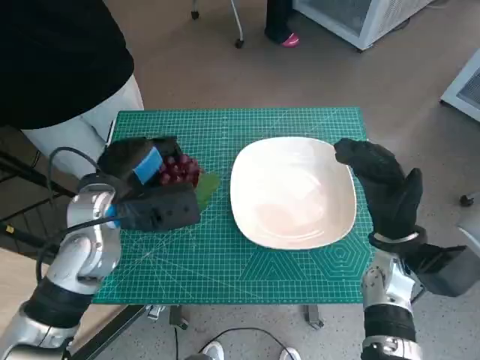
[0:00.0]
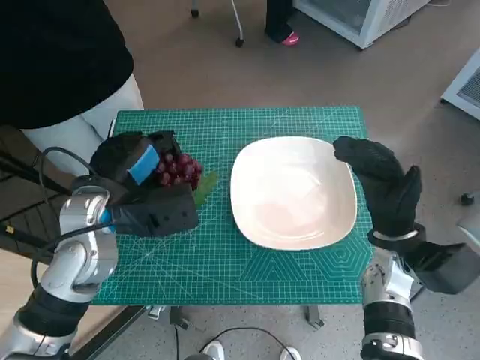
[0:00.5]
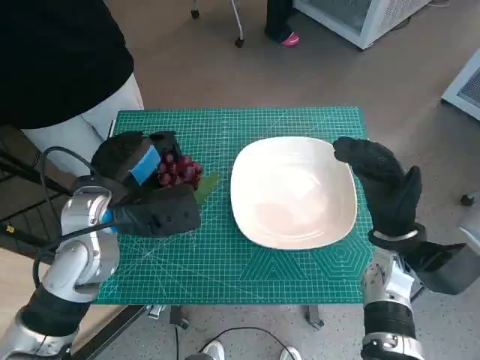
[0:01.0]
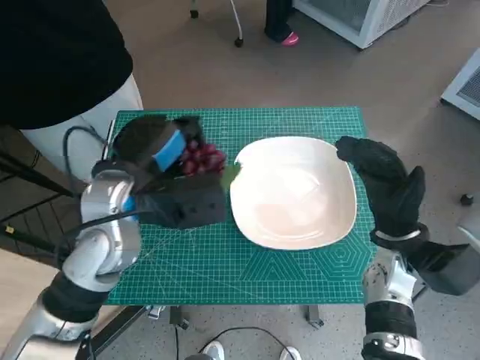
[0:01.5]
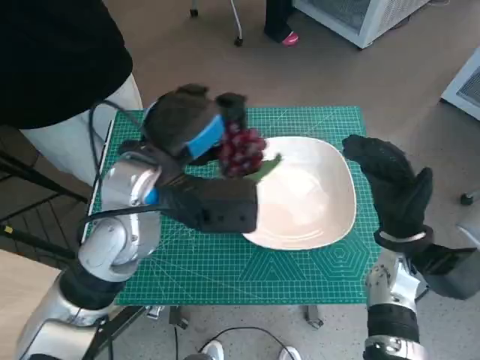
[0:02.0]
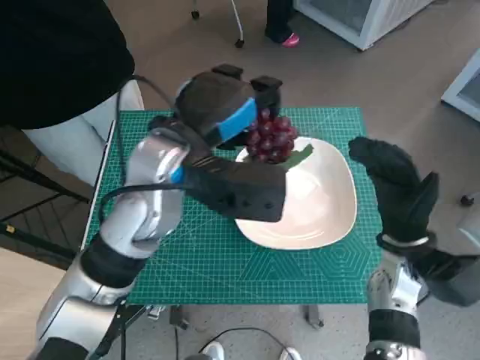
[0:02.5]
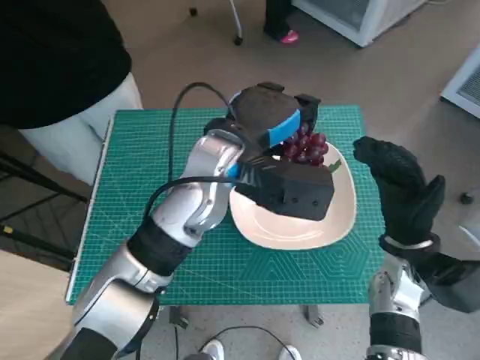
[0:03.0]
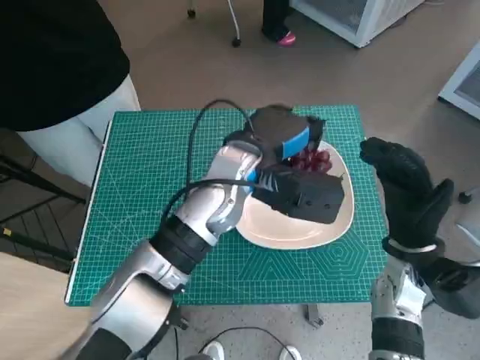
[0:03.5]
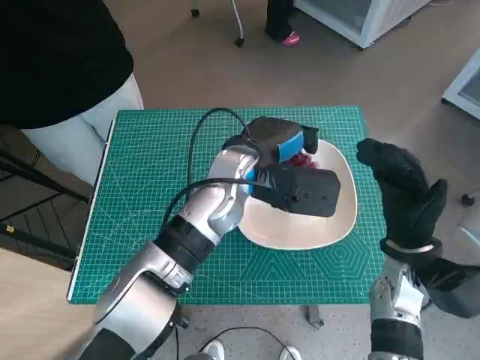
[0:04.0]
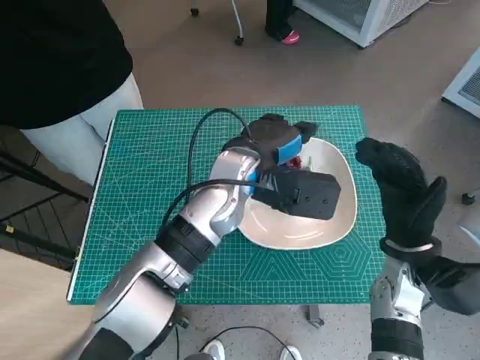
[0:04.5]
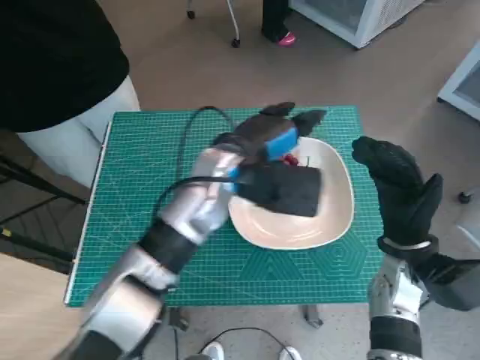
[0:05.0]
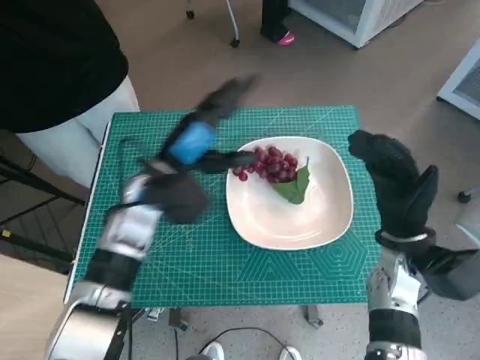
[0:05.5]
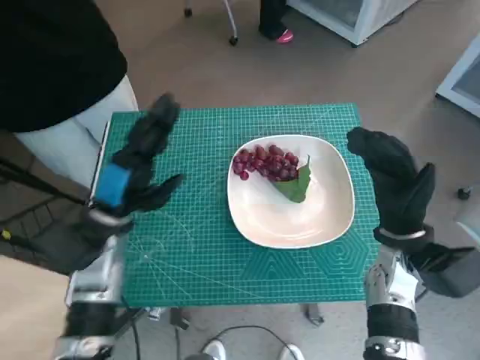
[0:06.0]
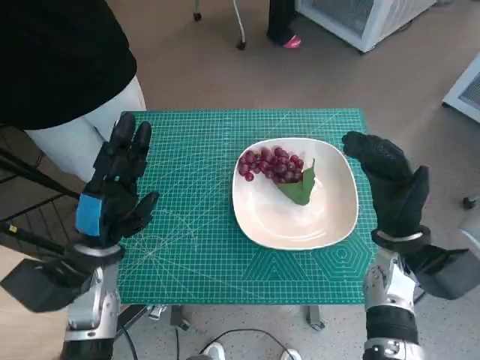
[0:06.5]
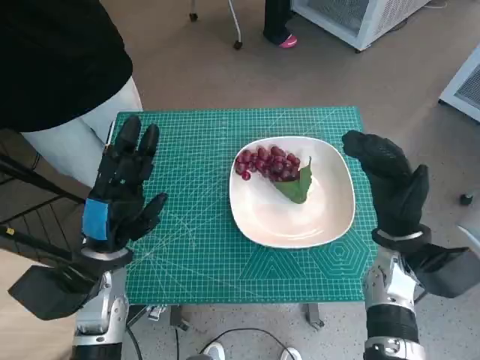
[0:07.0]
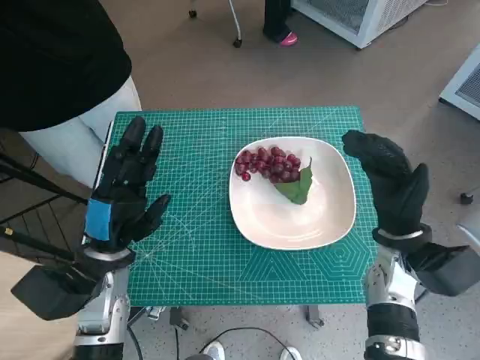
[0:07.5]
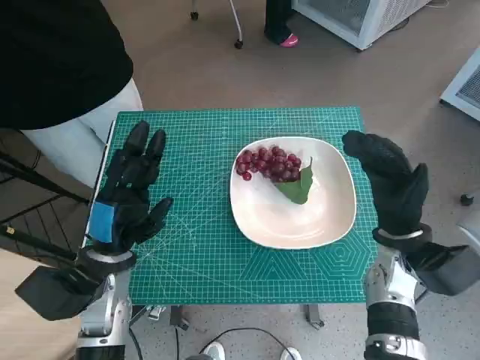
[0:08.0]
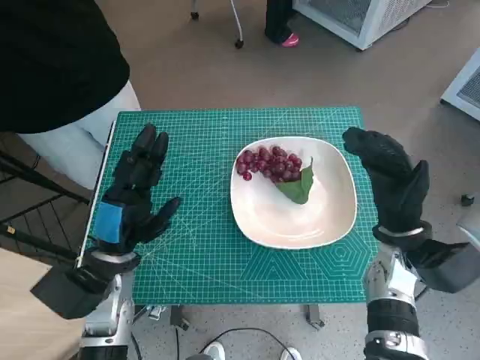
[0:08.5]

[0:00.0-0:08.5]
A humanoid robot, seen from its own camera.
Task of the whole recording: Pick up the grapes and put them on the plate.
Step, 0:00.0 to 0:04.5: Place the grapes in the plate with left hand.
0:00.0 to 0:02.0: The left hand shifts roughly 10 cm to the right and upward.
0:02.0 to 0:04.0: The left hand shifts roughly 10 cm to the right and forward.
0:04.0 to 0:06.5: The left hand goes about 25 cm to the left, backward and downward.
0:06.5 to 0:08.5: The hands stay close to where they were, moving slightly.

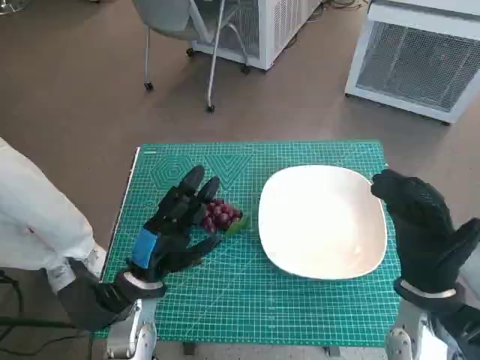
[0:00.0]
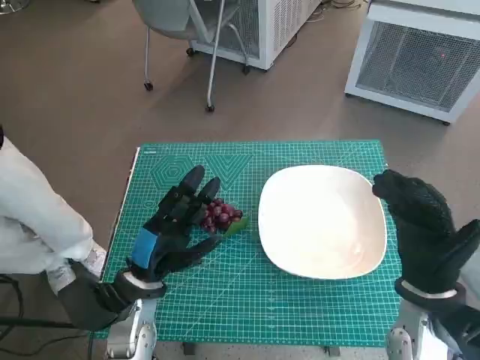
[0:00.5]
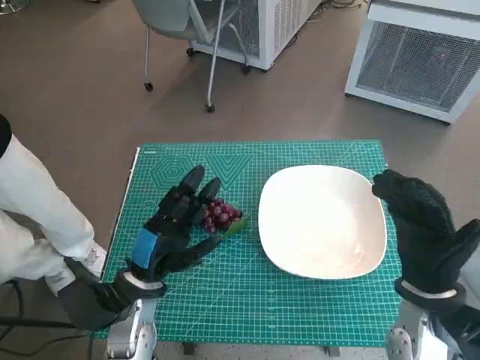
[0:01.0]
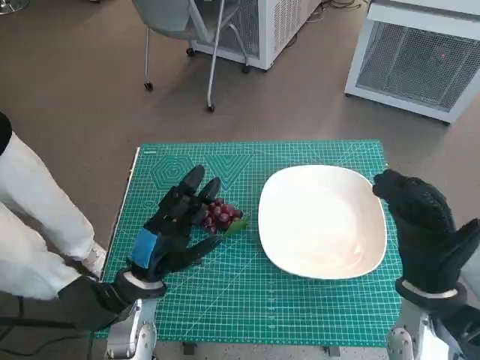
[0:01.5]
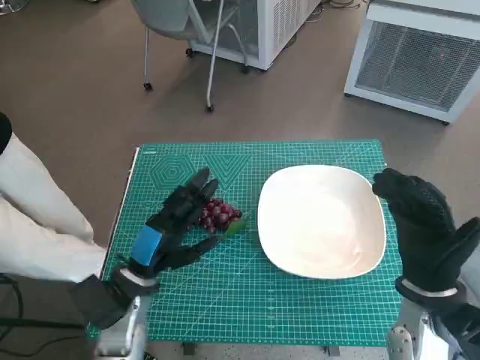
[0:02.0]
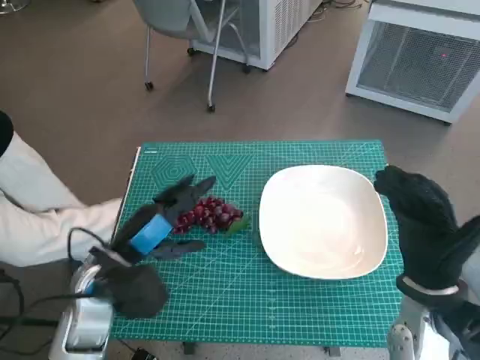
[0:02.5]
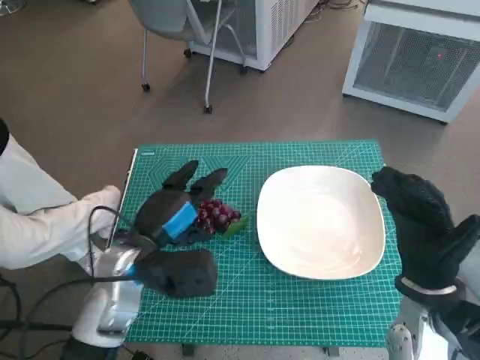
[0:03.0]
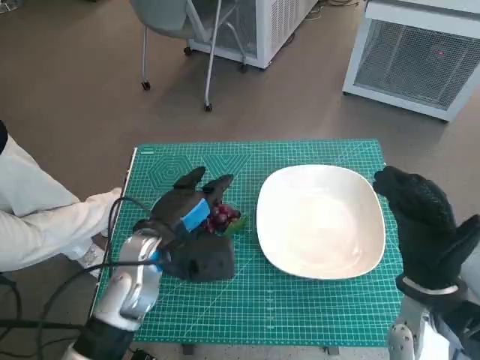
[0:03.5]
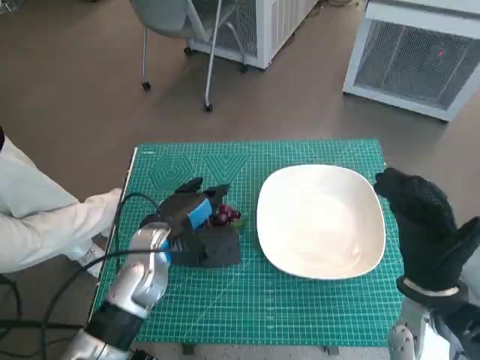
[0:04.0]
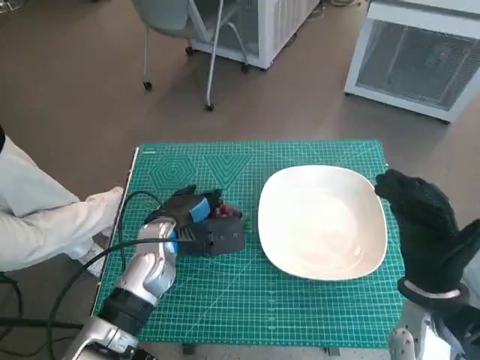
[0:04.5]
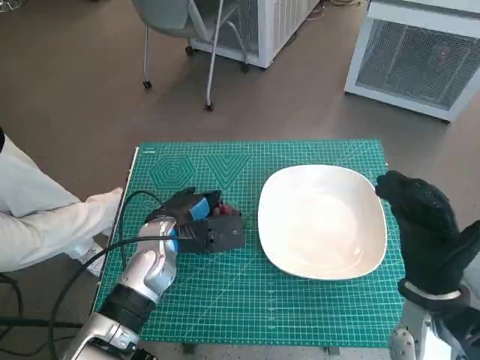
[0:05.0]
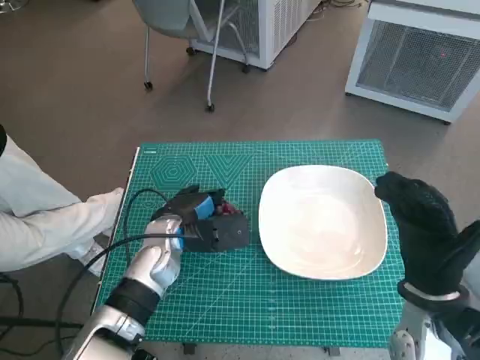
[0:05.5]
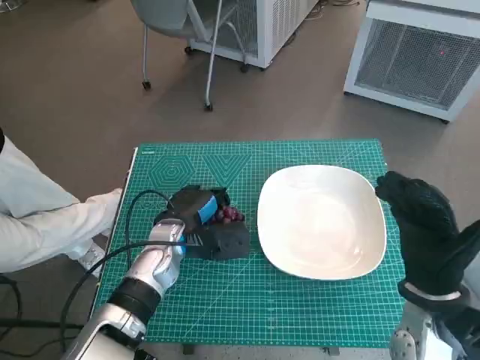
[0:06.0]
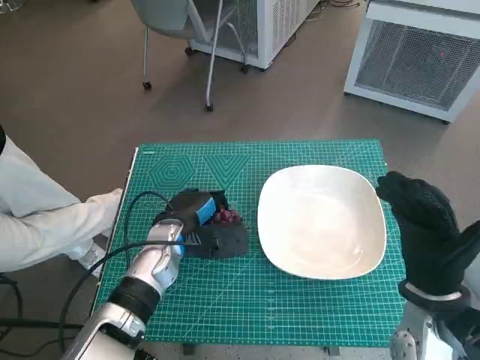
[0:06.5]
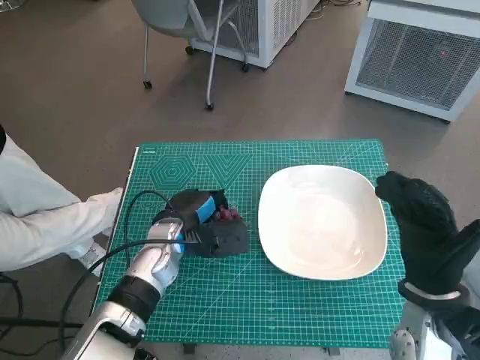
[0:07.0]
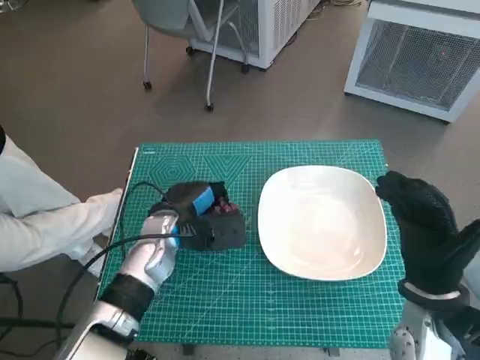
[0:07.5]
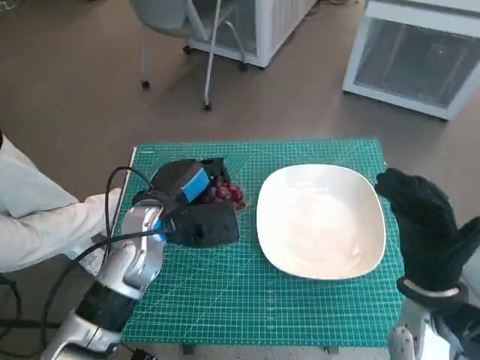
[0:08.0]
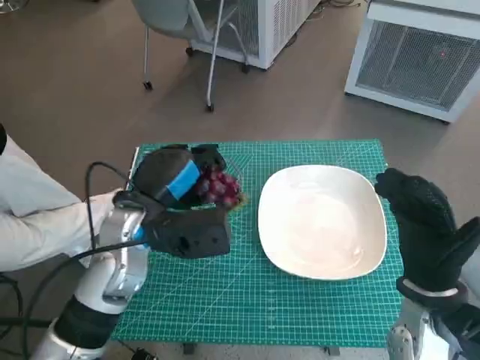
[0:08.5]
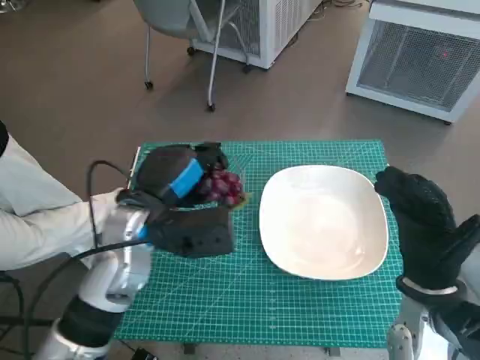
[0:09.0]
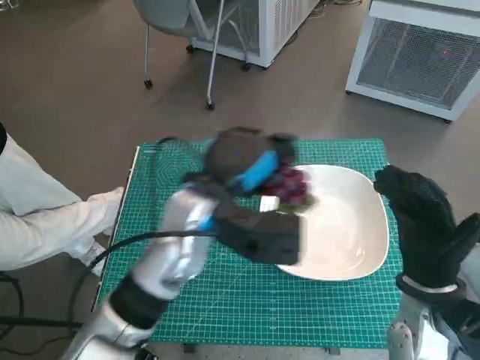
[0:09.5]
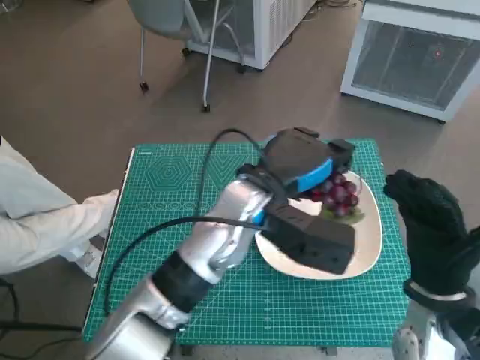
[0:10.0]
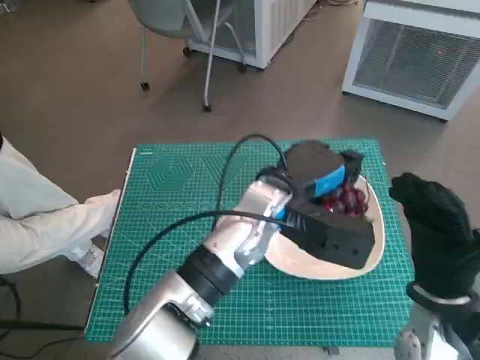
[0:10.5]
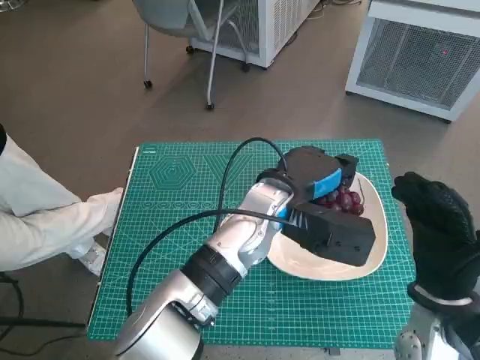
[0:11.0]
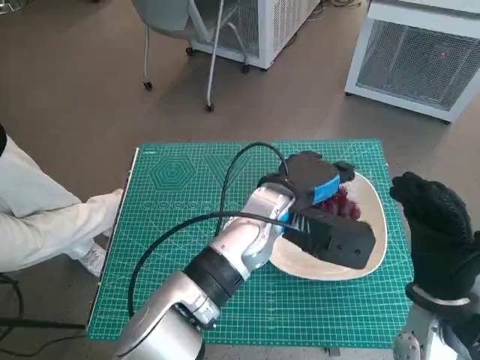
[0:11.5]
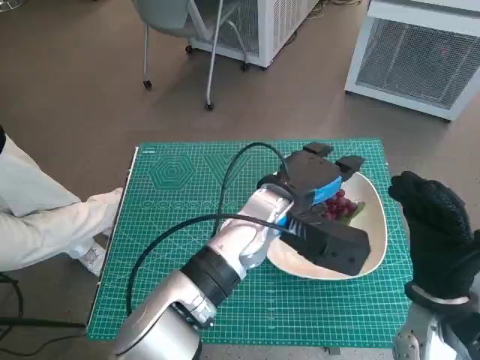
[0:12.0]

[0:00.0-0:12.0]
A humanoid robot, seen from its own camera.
Task of the whole recording: Pick up the grapes and put them on the plate.
Step, 0:00.0 to 0:07.0: Grasp the grapes with left hand.
0:02.0 to 0:04.0: The left hand goes about 5 cm forward.
0:04.0 to 0:06.0: There are only small adjustments of the hands.
0:06.0 to 0:08.0: The left hand goes some 5 cm upward.
0:08.0 to 0:10.0: The left hand goes some 15 cm to the right and upward.

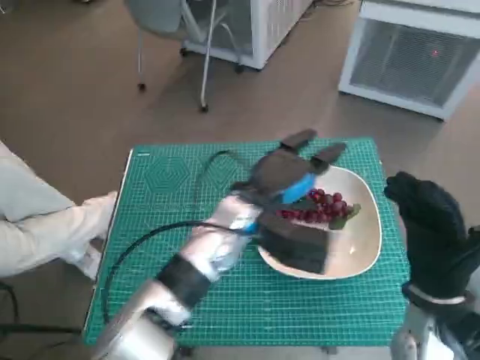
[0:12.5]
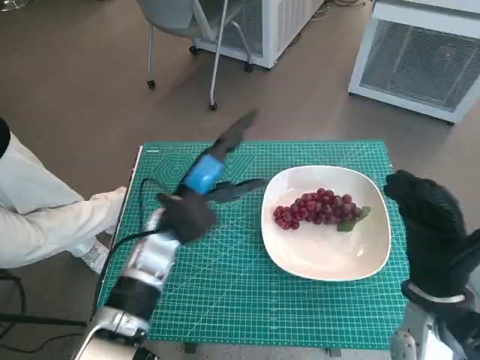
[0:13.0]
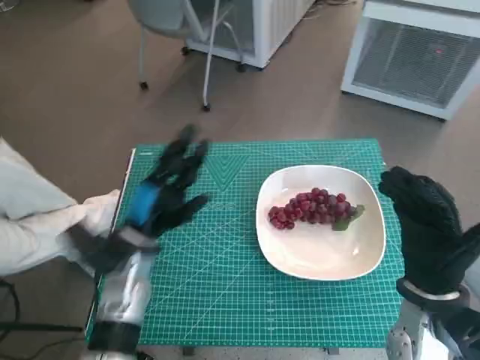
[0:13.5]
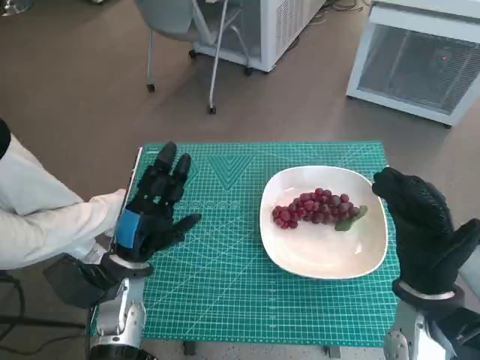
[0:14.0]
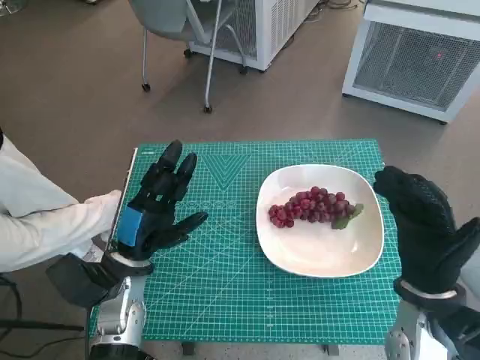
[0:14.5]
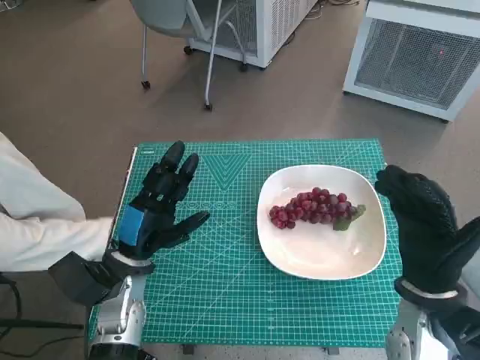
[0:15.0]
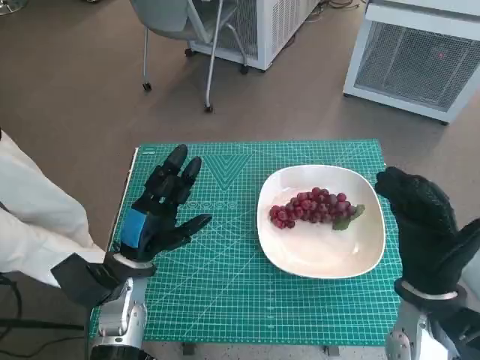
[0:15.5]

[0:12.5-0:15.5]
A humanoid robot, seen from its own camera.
Task of the whole recording: Pick up the grapes and put them on the plate.
0:12.5 to 0:14.0: The left hand is displaced to the left and downward by some 20 cm.
0:14.0 to 0:15.5: Both hands stay put.
